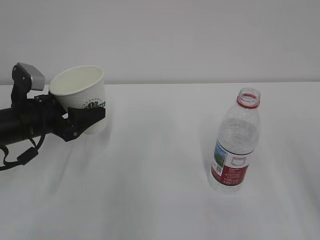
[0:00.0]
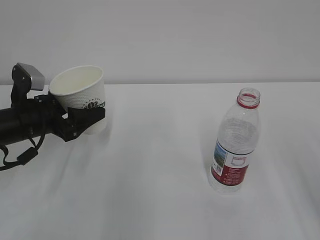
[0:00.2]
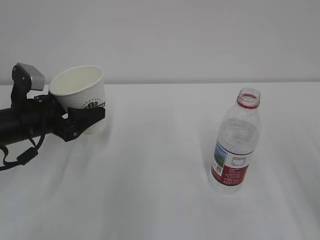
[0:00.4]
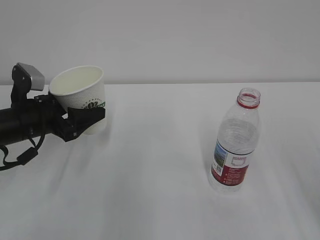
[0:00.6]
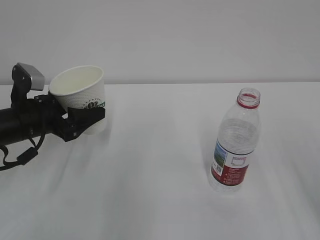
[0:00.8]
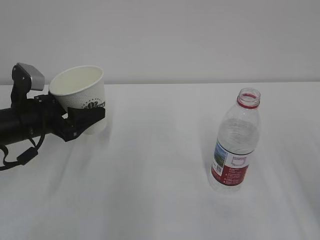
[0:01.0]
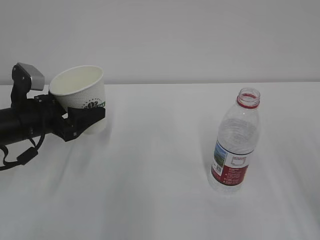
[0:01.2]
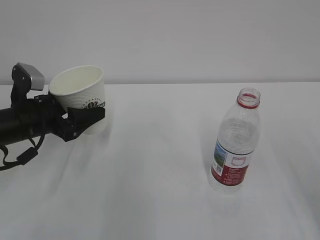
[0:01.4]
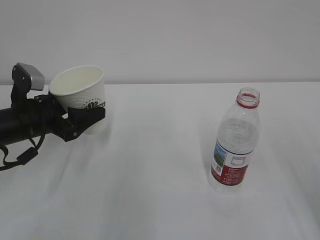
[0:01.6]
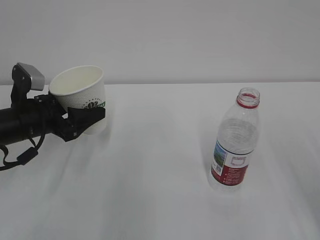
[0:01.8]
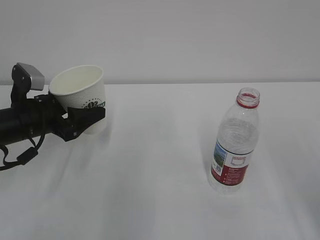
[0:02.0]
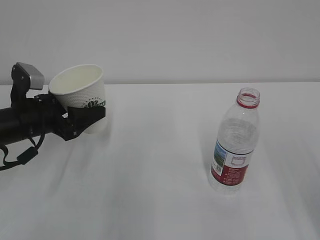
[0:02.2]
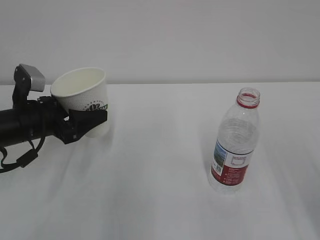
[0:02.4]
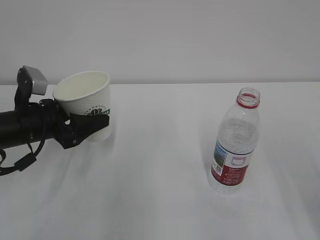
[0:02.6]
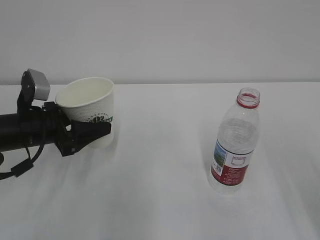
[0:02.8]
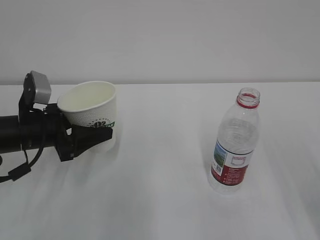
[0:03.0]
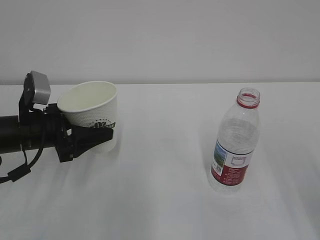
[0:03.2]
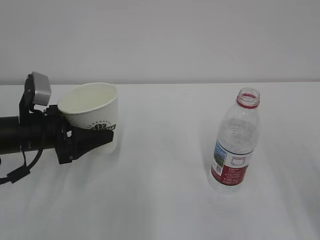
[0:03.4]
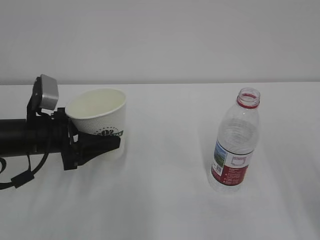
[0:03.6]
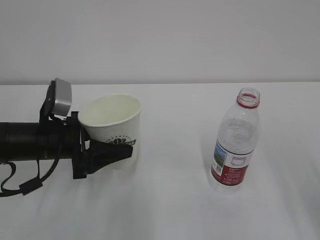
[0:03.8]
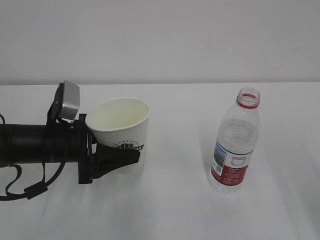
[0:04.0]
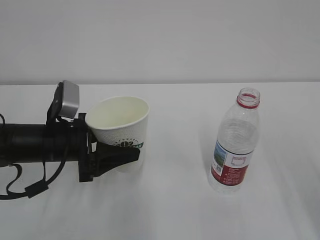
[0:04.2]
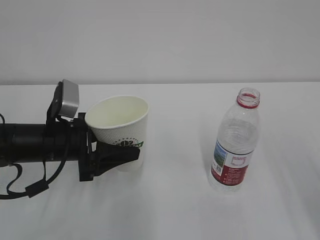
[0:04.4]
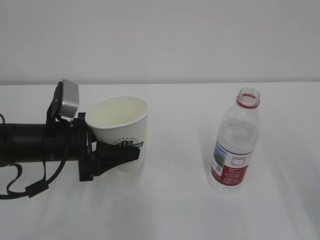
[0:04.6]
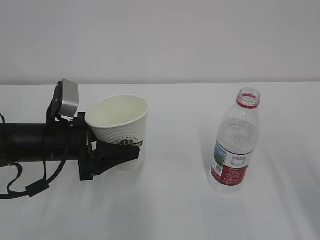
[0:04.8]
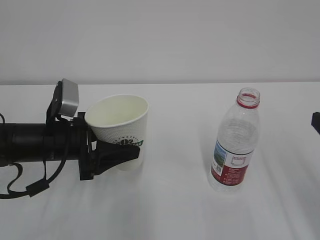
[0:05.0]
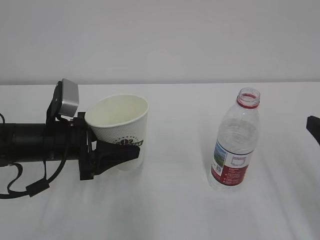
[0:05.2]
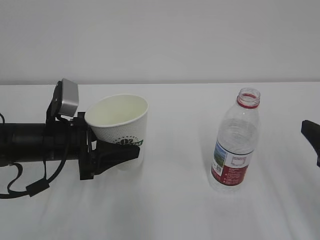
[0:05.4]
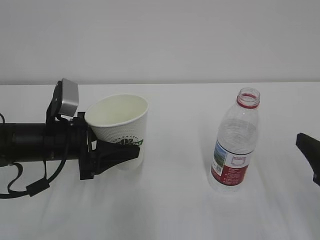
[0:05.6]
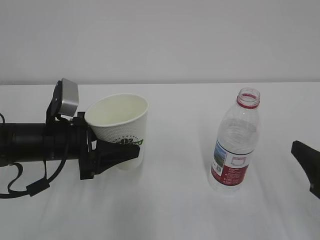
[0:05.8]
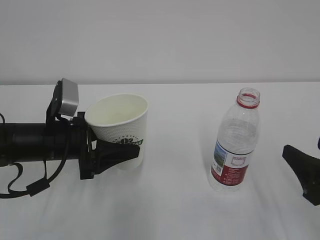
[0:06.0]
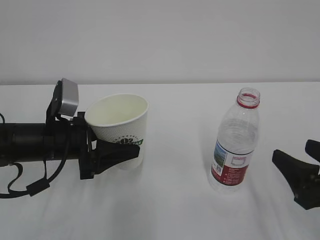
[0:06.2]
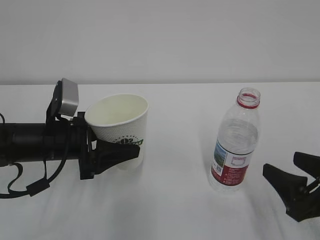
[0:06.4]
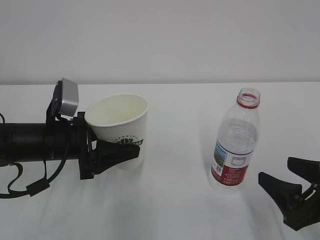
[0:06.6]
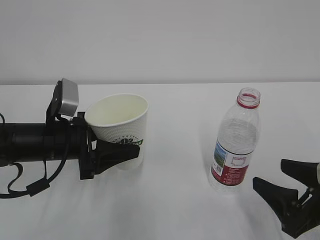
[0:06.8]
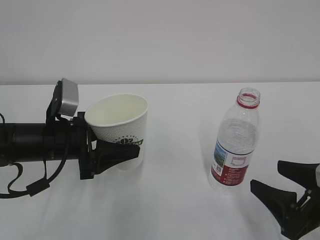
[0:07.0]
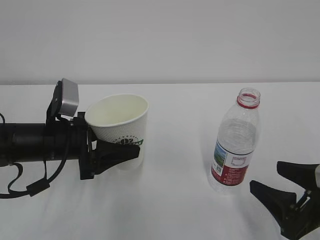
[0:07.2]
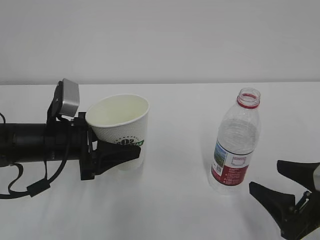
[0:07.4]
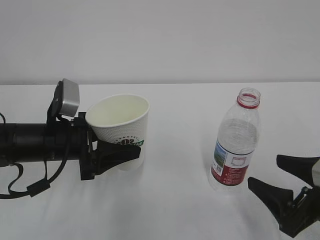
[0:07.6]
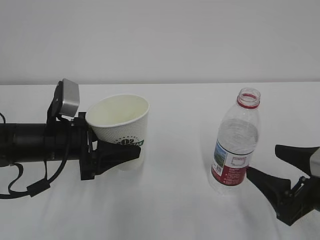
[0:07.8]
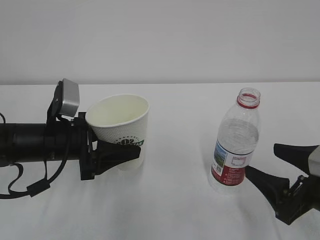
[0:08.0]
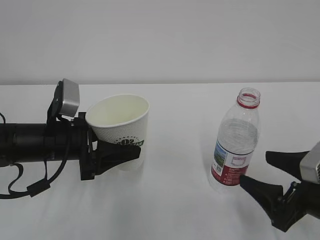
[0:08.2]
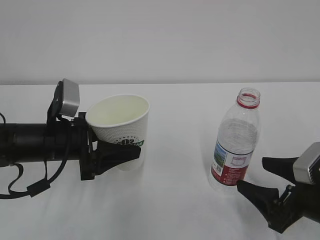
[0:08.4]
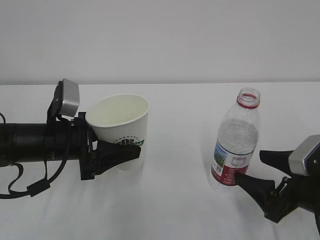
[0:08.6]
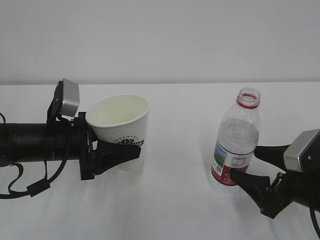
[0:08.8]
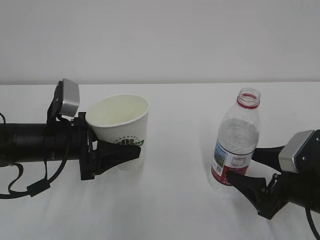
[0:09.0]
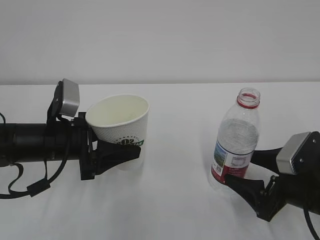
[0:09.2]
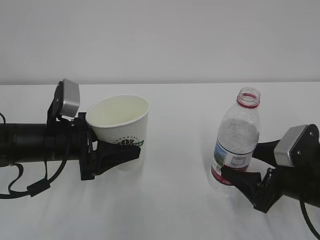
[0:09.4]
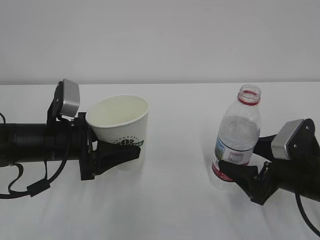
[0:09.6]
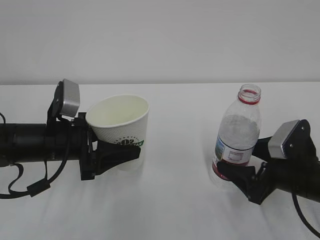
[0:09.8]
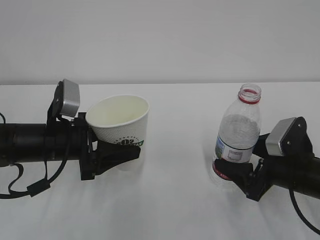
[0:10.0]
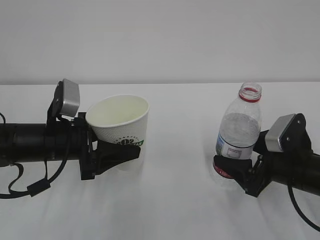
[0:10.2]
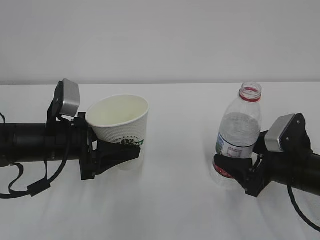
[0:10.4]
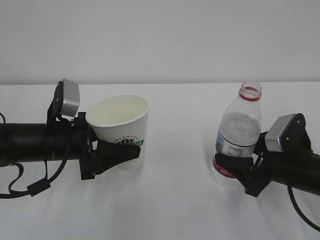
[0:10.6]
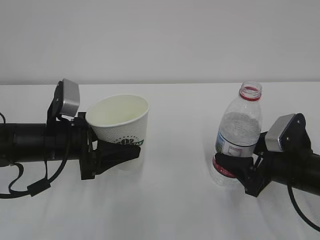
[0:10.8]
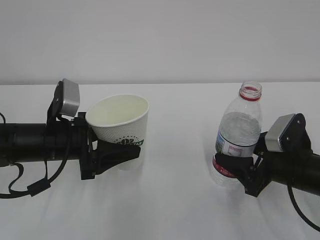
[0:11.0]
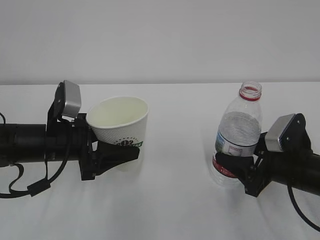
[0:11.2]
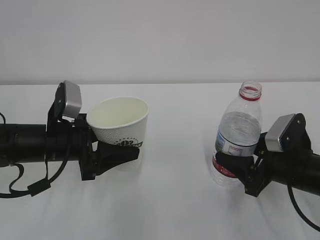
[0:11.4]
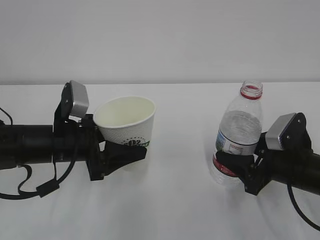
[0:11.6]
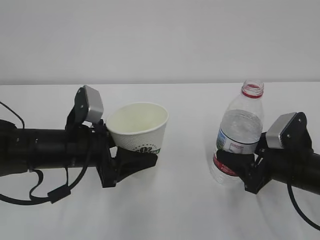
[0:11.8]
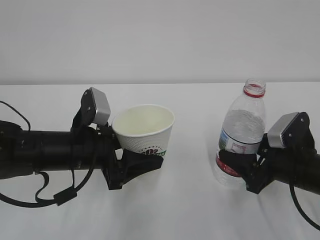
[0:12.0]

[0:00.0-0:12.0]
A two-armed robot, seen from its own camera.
0:01.6 to 0:03.0: The grippers stay close to where they were, moving slightly.
0:03.0 to 0:04.4: The left gripper ends up about 5 cm from where it was.
0:04.4 to 0:06.0: The right gripper travels downward by approximately 10 cm.
0:06.0 to 0:07.6: There are only small adjustments of the grippers.
0:07.6 to 0:09.0: The right gripper changes place by some 5 cm.
0:09.0 to 0:10.4: The grippers make only small movements.
0:10.4 to 0:12.0: The right gripper closes up.

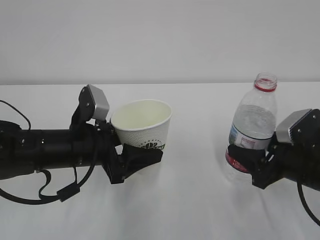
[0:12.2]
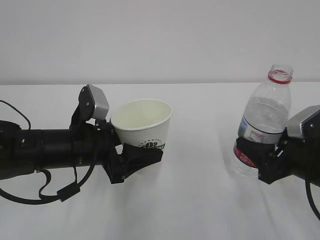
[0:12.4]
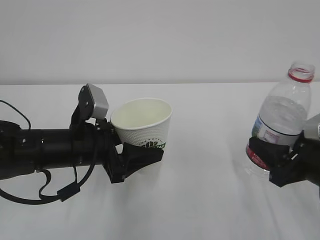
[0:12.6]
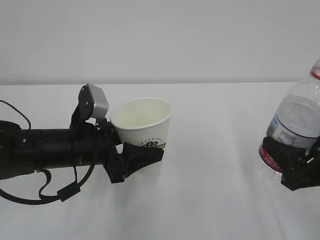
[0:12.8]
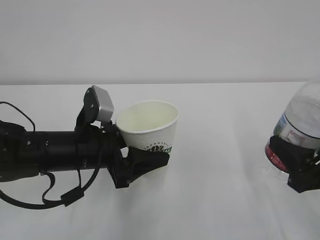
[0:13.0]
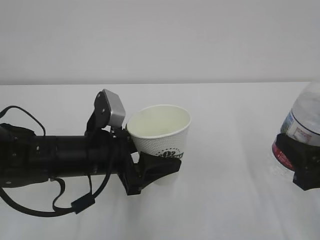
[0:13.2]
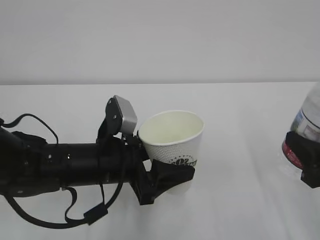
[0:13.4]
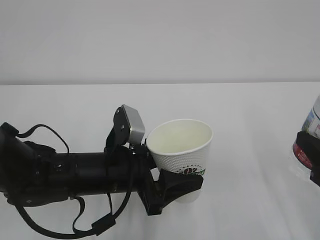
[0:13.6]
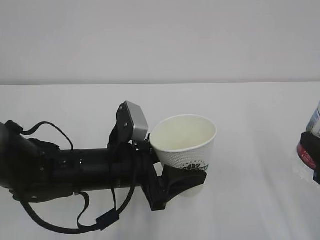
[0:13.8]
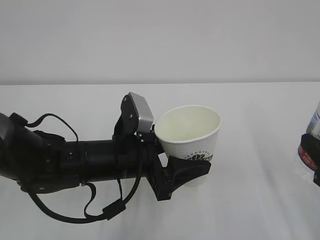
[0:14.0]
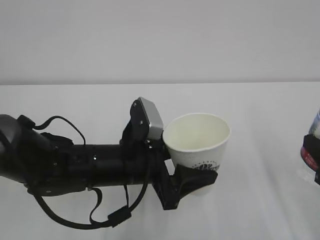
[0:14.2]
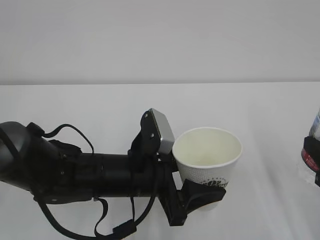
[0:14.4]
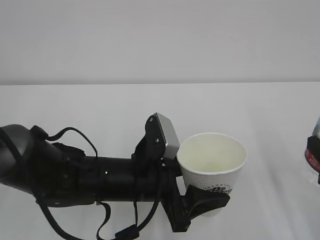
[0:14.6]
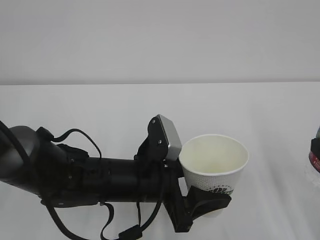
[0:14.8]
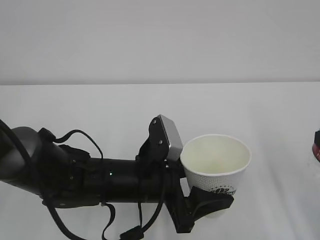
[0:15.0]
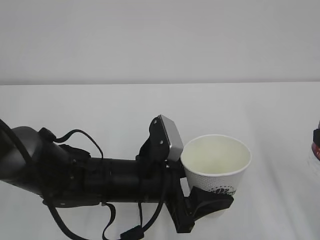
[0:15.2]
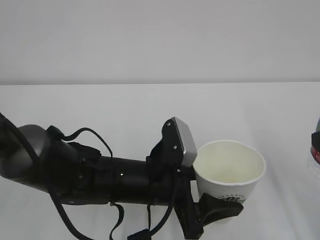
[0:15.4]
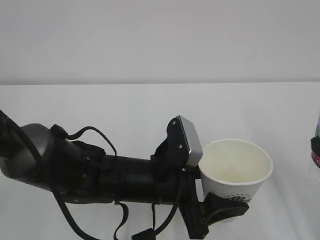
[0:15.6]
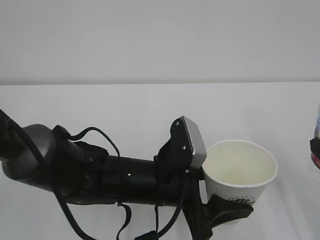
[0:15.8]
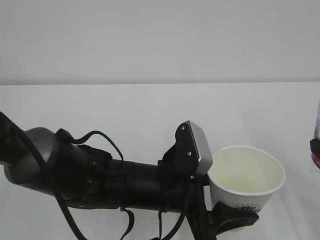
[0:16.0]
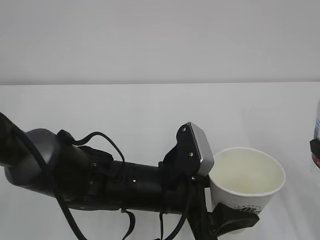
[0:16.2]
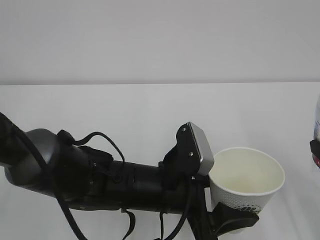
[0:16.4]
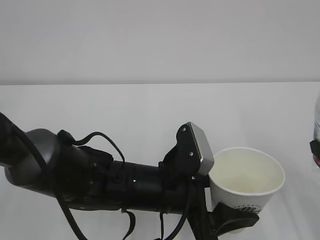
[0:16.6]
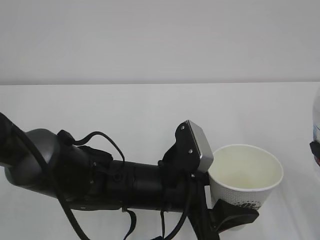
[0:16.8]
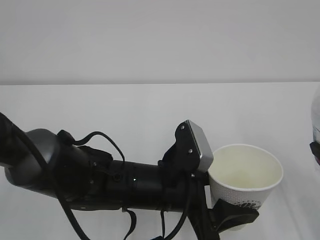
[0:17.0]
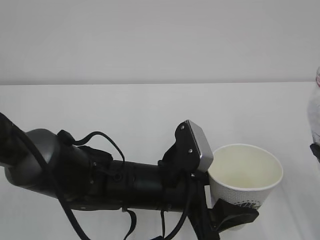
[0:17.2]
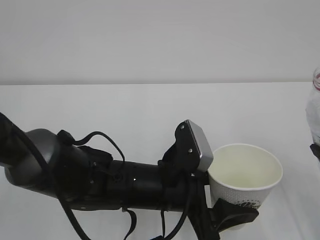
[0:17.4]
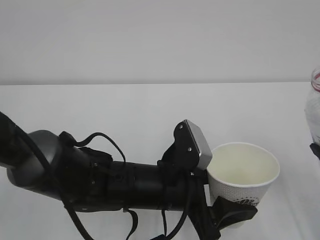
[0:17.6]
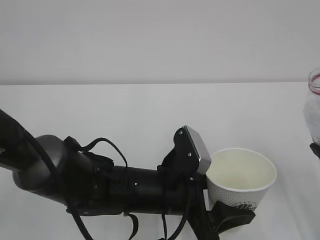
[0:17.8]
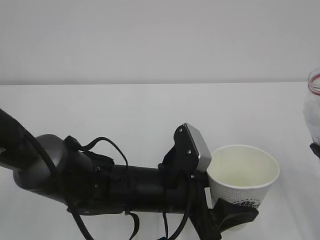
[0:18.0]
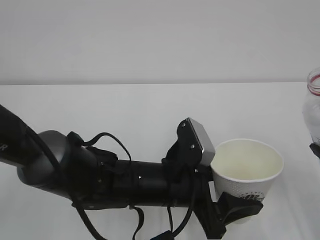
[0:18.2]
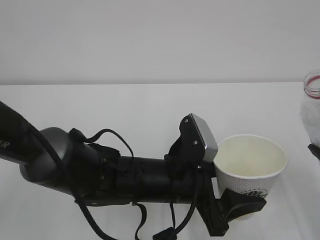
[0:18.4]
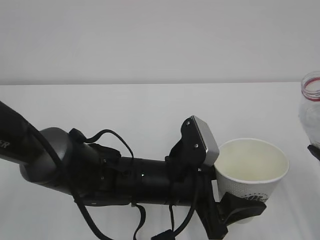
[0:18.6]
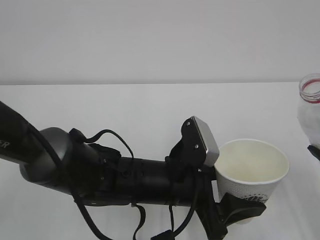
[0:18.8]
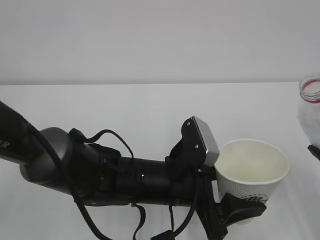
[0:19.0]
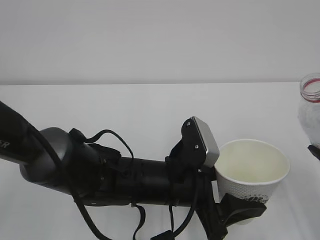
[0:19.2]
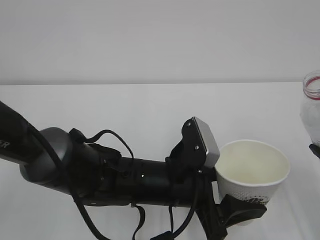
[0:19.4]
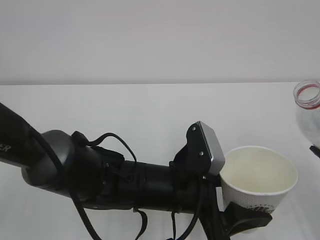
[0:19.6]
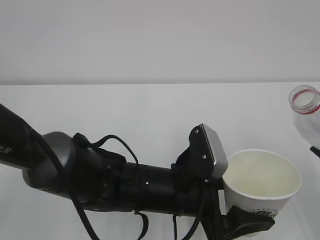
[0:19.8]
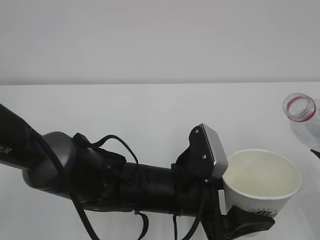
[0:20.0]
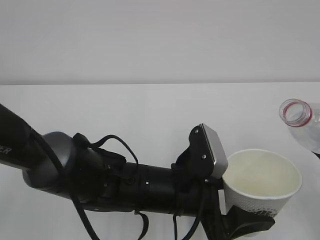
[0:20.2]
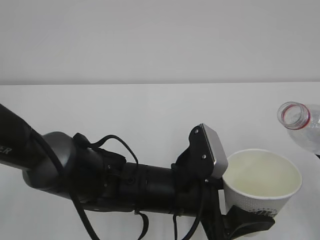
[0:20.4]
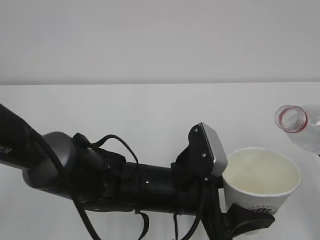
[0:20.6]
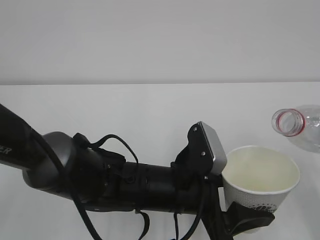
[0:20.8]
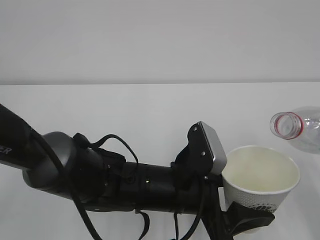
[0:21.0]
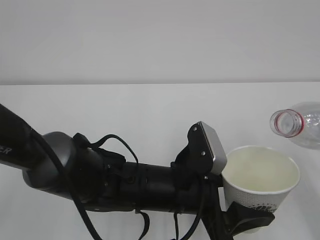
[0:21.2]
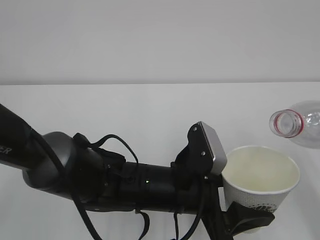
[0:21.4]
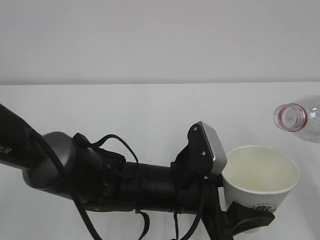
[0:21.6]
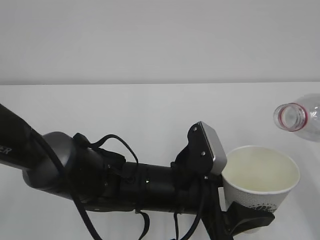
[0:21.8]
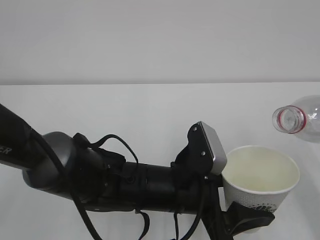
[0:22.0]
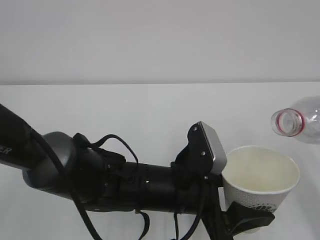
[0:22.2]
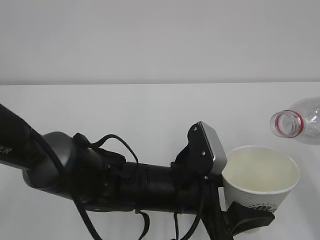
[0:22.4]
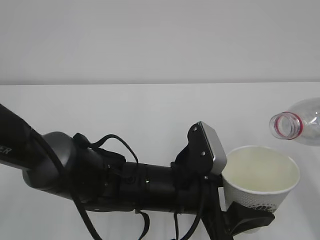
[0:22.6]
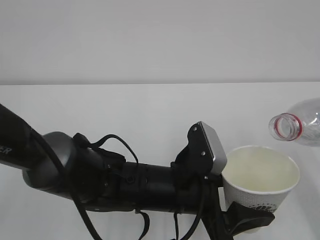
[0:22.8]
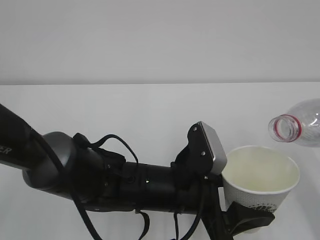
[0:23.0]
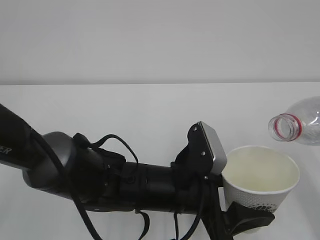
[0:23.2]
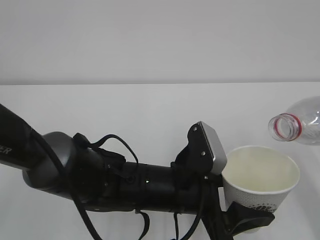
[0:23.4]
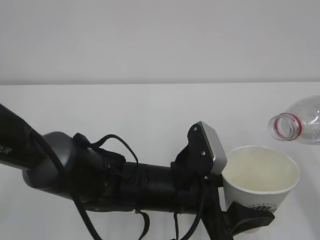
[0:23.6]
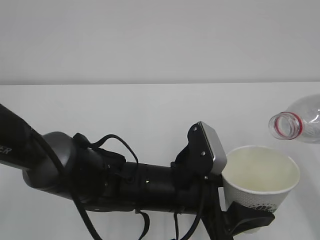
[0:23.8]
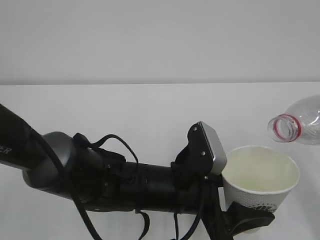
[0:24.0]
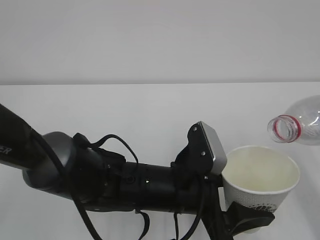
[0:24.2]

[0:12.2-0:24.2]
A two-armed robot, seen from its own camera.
0:12.2 to 0:13.8: The right gripper heads backward and upward, covering some 10 cm, while the left gripper travels to the right by about 5 cm.
0:13.8 to 0:15.2: The grippers stay close to where they were, moving slightly.
0:15.2 to 0:16.6: There are only small adjustments of the grippers.
0:16.6 to 0:18.2: The grippers move only a little.
0:18.2 to 0:19.8: The grippers move only a little.
